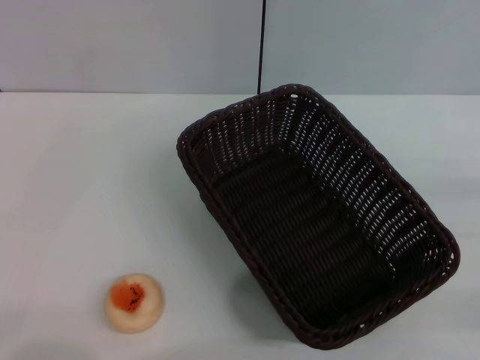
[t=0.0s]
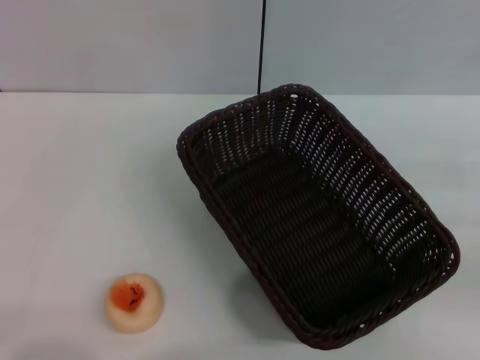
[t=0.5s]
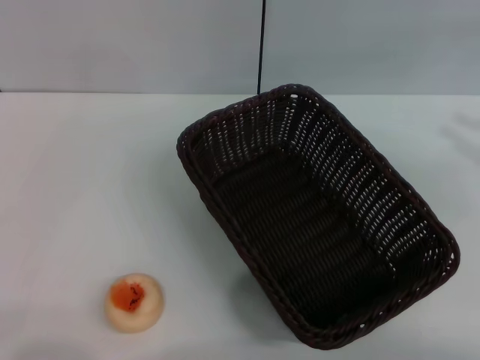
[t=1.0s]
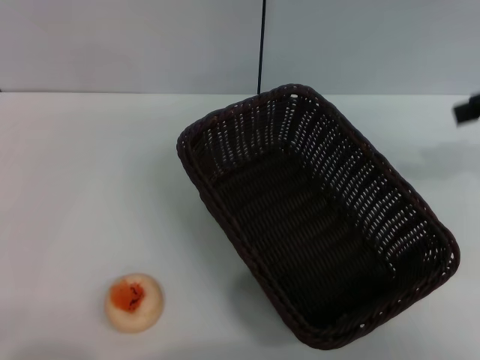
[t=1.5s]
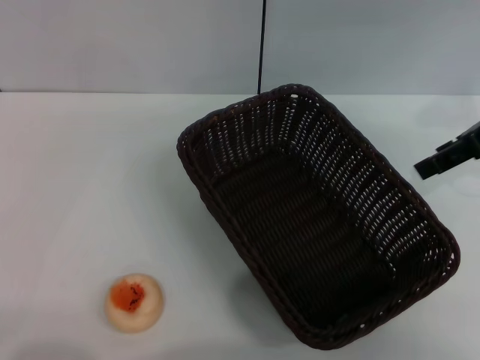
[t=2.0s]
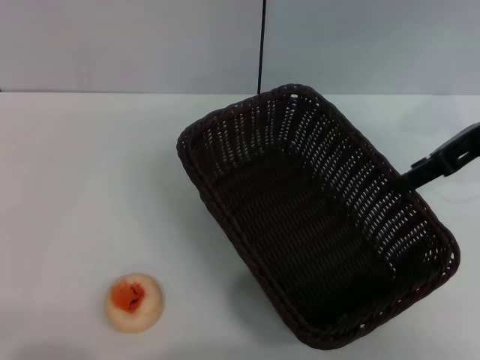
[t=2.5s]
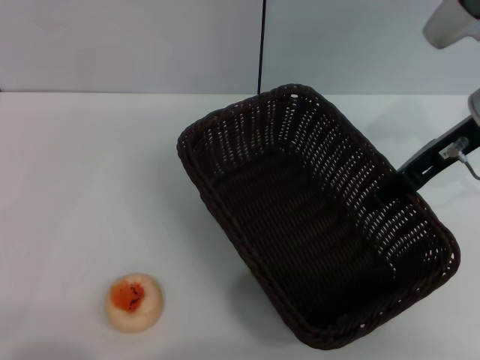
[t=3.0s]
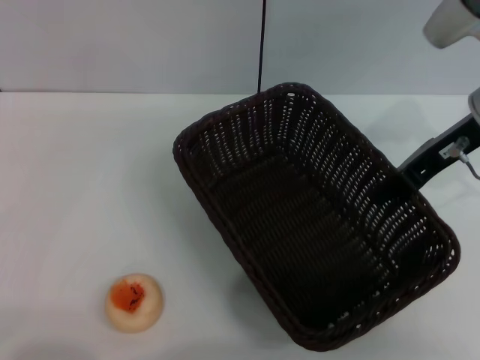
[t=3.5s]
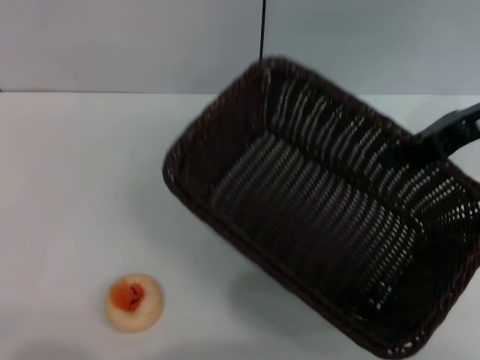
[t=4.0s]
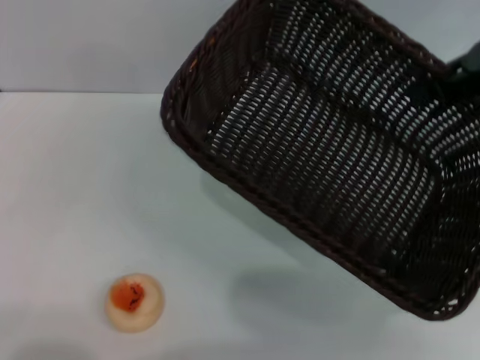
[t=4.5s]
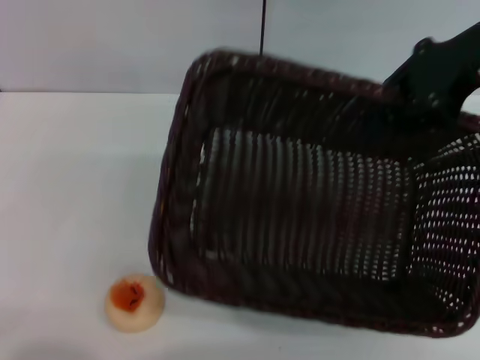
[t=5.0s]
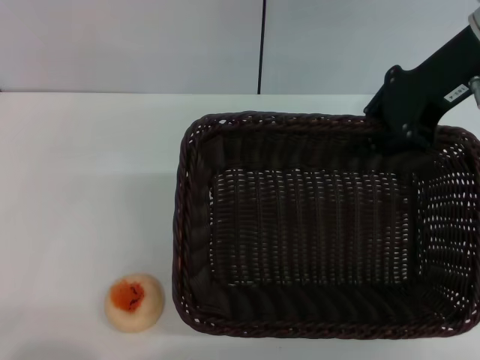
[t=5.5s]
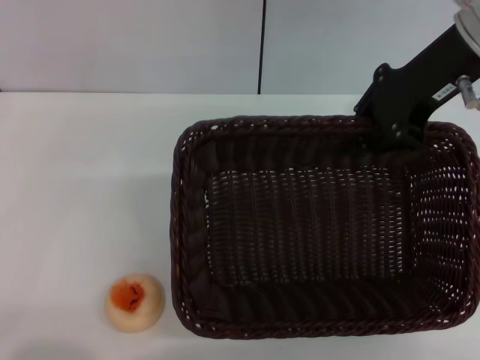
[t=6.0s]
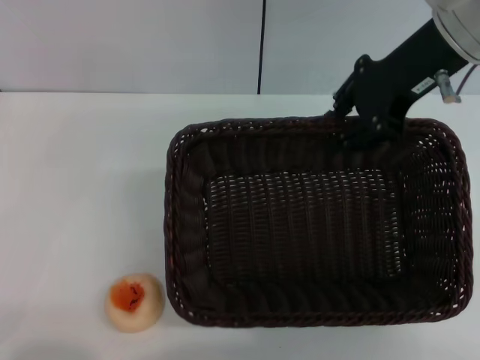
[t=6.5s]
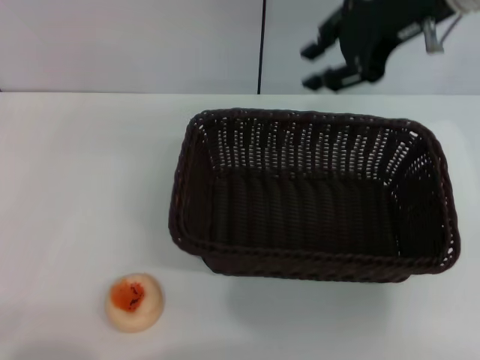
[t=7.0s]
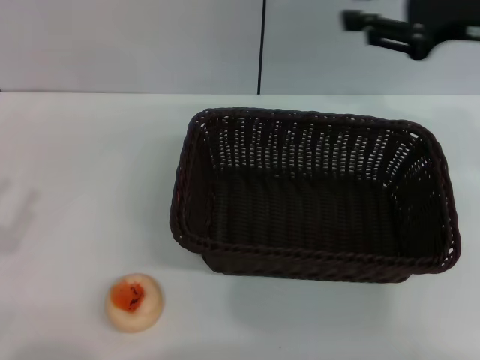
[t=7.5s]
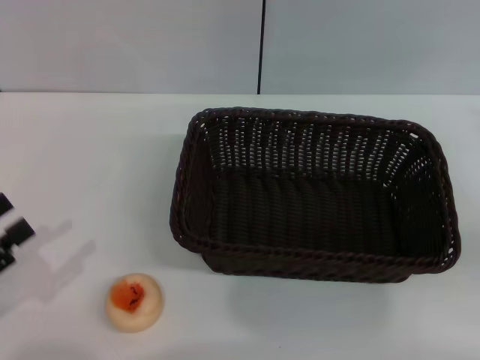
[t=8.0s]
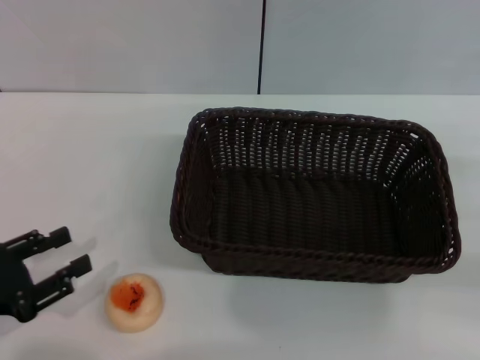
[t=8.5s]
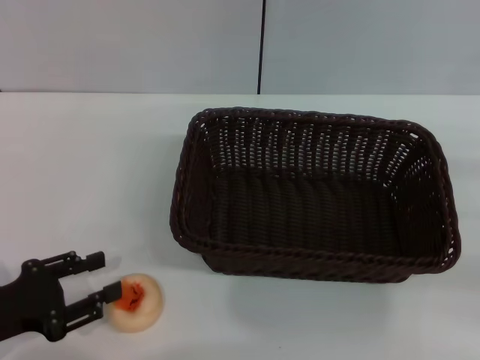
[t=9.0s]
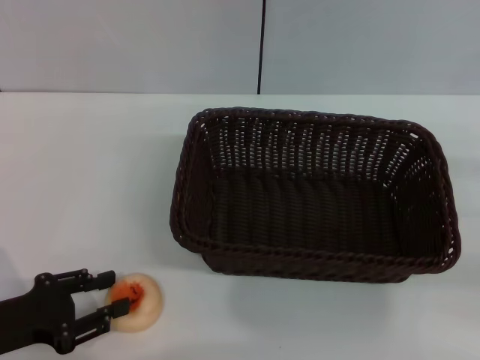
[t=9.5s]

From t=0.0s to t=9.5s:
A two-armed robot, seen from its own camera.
Step, from t=0.0s to t=6.5s: Move the basket to the center of view with the right gripper.
From t=0.0s to t=2.0s: The right gripper is displaced forward, upward and to the left by approximately 25 cm, and opens its fingers.
From t=2.0s to t=4.0s: The right gripper closes.
From t=4.0s to t=5.5s: The right gripper heads to the left and upward, covering some 10 cm.
From t=5.5s to t=7.5s: The right gripper is displaced to the right by about 5 cm.
From t=7.5s to t=9.5s: The right gripper moves to the right, downward and backward, approximately 25 cm. The left gripper goes roughly 5 cm to the right and downward.

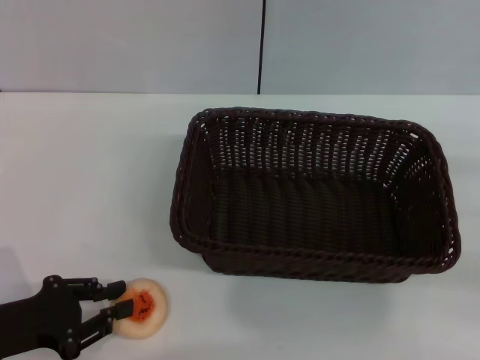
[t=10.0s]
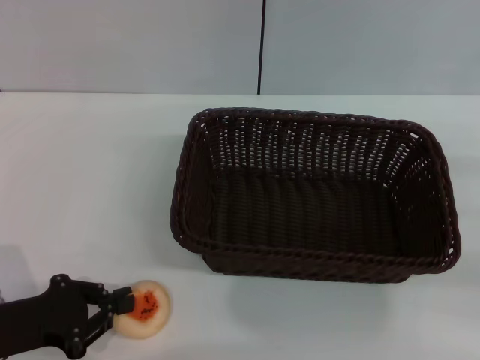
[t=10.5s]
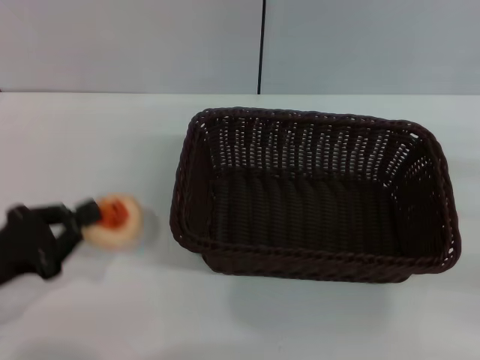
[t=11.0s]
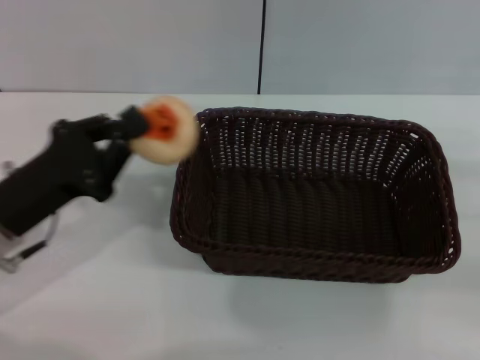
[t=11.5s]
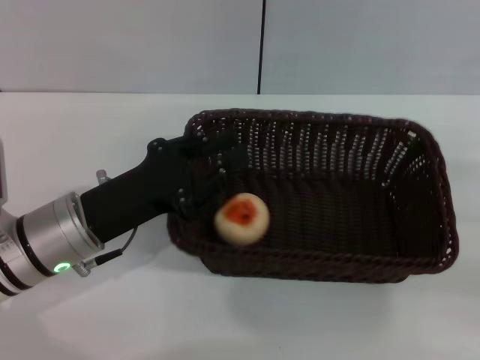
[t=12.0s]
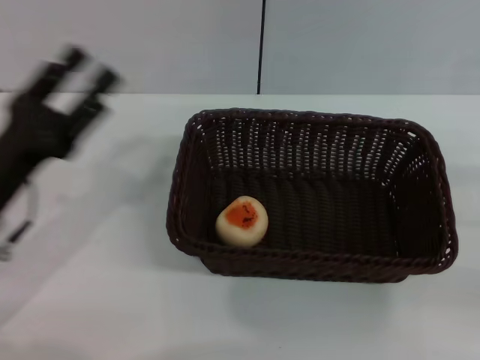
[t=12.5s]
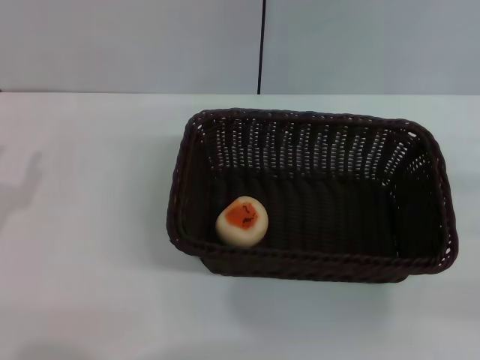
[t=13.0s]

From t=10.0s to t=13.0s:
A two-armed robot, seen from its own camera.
Step, from t=11.5s to t=12.0s: Place the egg yolk pastry into the basket with the left gripper.
From t=10.0s to t=11.5s: The left gripper moves forward and to the right, roughly 10 cm, and closes up.
From t=11.5s to t=13.0s: The left gripper shifts roughly 10 cm to the left and backward, and opens its fingers.

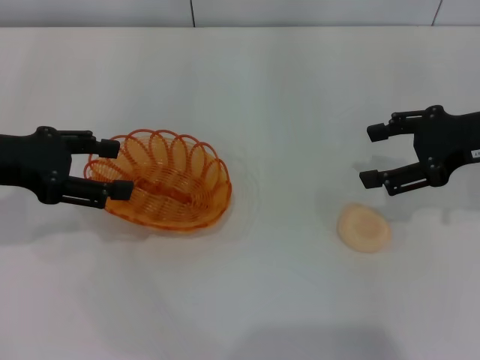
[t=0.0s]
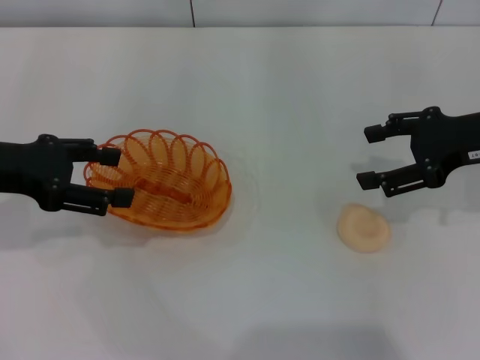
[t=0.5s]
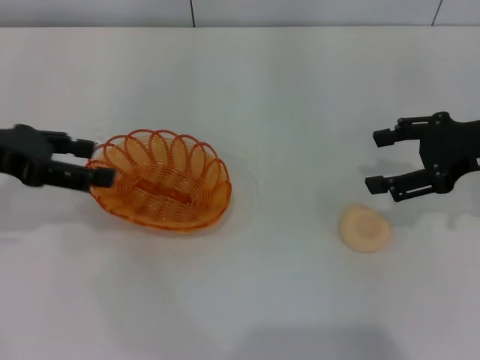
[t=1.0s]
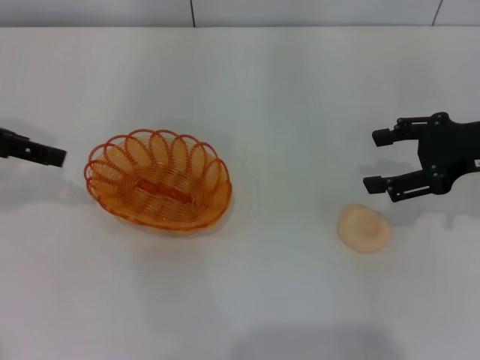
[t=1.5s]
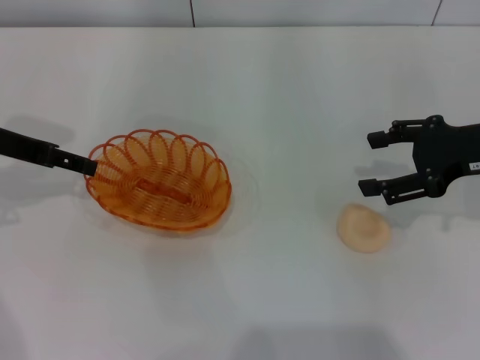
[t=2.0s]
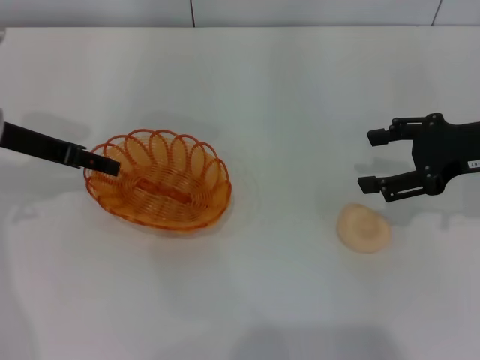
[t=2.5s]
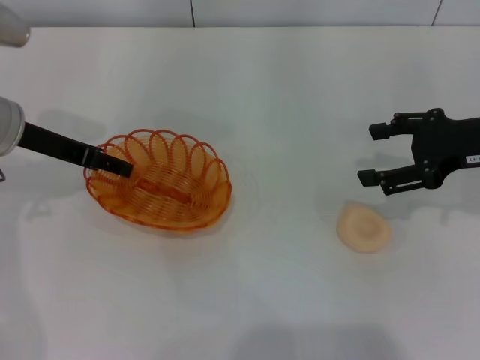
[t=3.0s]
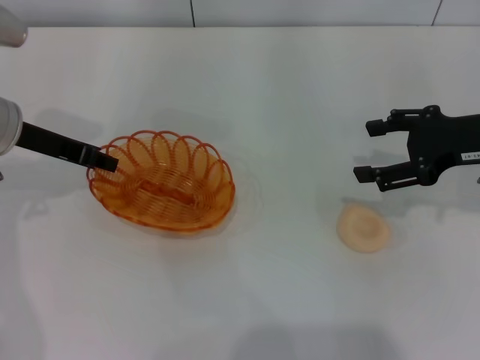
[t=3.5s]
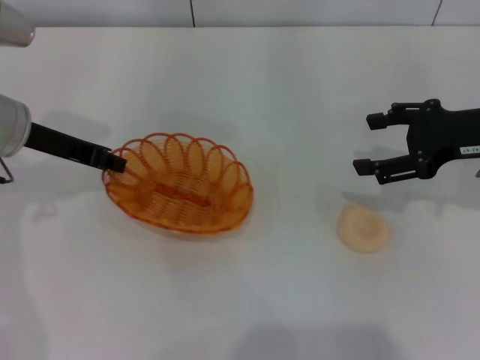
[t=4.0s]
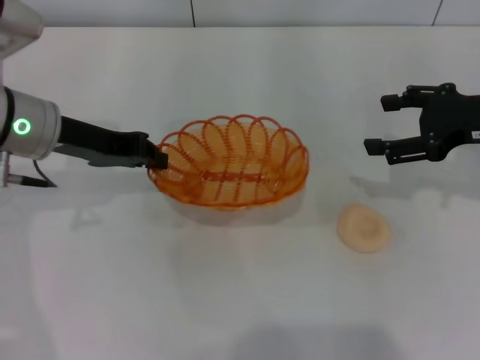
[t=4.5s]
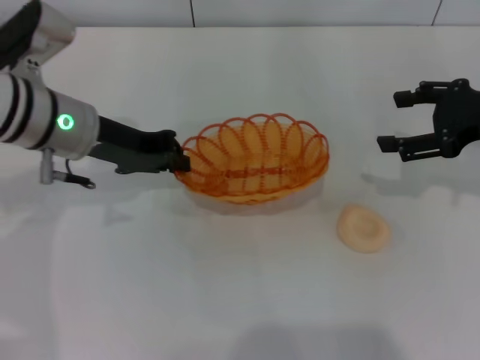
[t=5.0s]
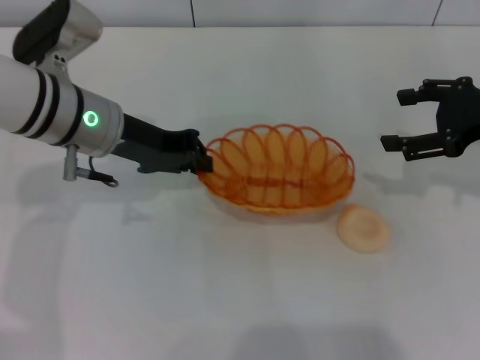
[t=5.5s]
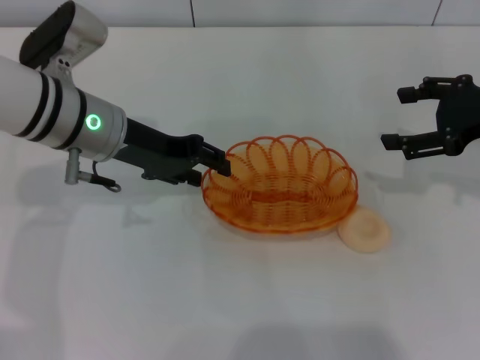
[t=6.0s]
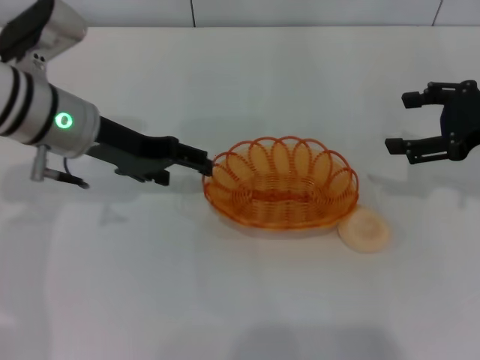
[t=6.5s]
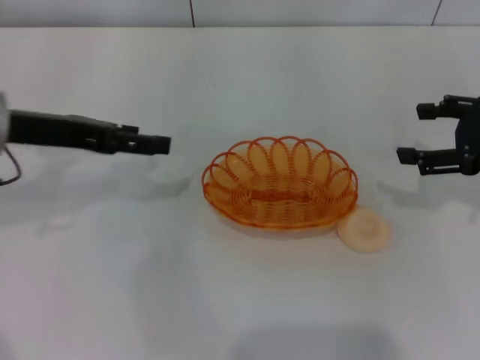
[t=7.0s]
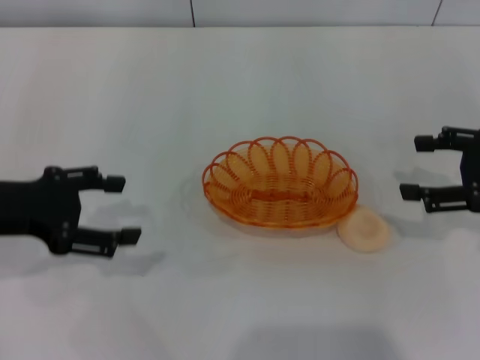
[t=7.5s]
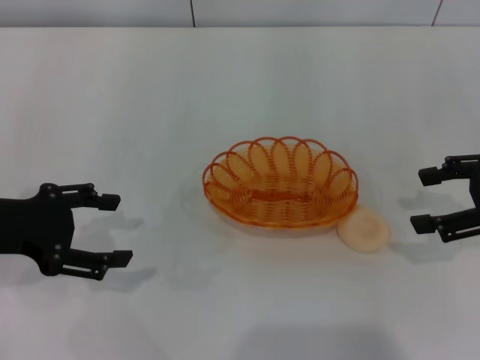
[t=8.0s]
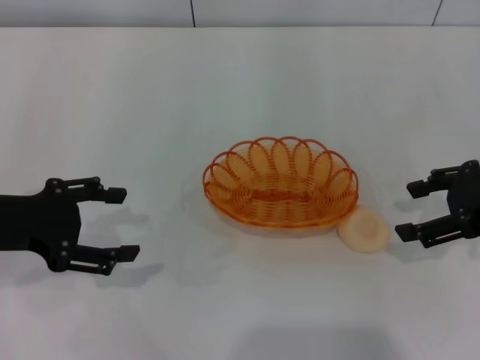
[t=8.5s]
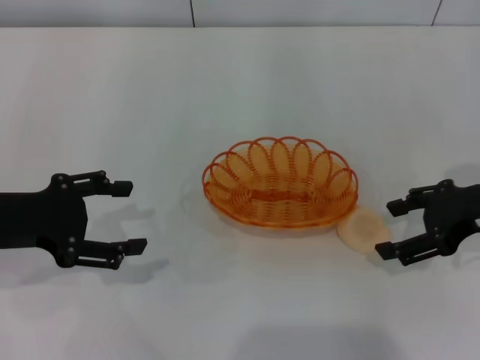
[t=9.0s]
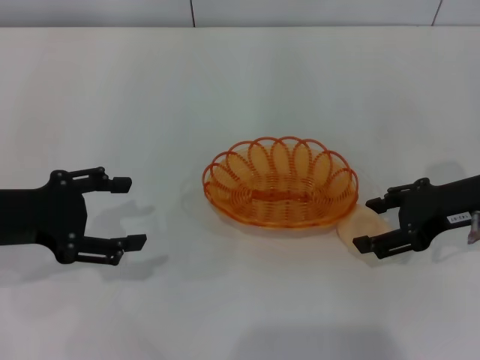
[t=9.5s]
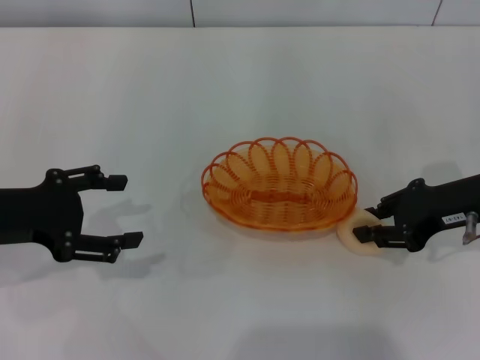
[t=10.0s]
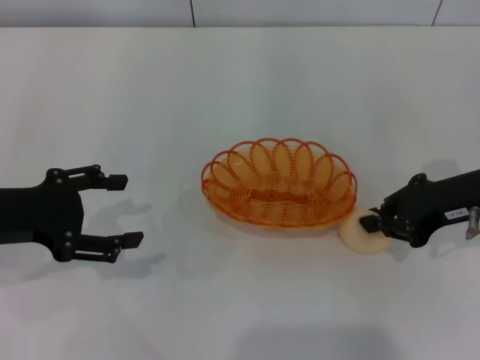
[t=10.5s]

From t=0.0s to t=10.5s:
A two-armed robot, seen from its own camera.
Step, from t=0.0s to t=4.0s: Pick up the basket with the left gripper.
Step, from t=4.5s to t=6.5s: Place the basket in the center of view with the left gripper.
From t=2.0s to t=4.0s: The left gripper moves some 5 cm, and closes its fingers.
From t=4.0s to t=6.5s: The left gripper heads to the right, covering some 5 cm, and opens its fingers.
From t=6.5s to t=8.5s: The left gripper moves to the left and backward, approximately 15 cm.
From t=8.5s to t=10.5s: The right gripper changes place by approximately 5 cm, and closes.

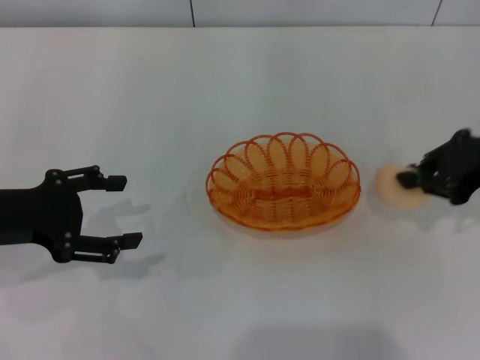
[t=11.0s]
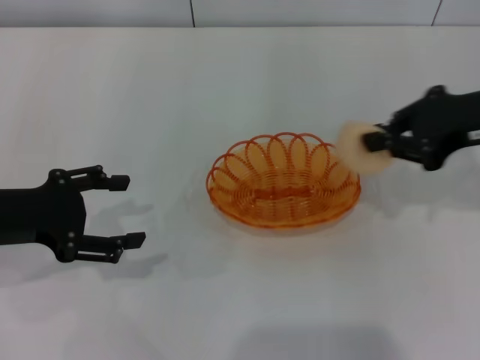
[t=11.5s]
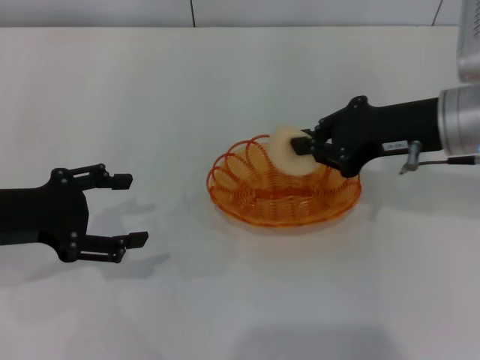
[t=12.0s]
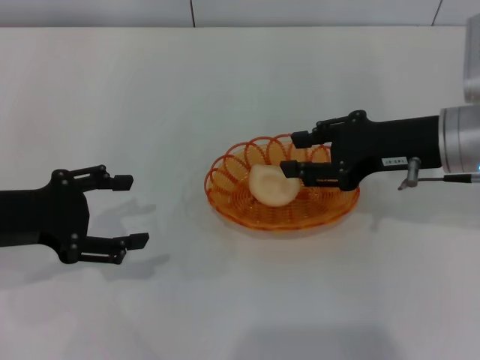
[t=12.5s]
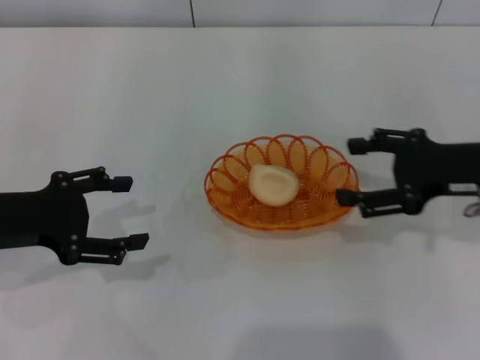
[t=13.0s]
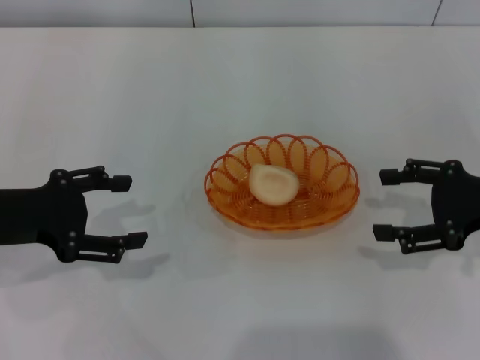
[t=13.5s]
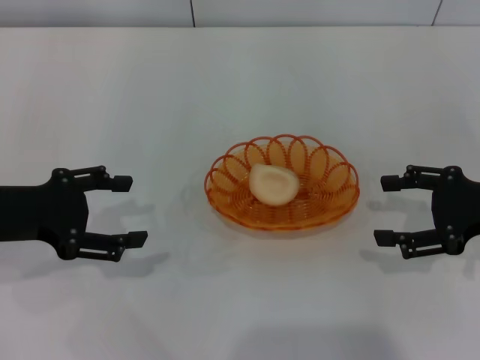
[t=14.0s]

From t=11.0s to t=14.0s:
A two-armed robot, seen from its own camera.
Step, from t=11.5s to t=12.5s: Place the egg yolk pastry into the basket with the right gripper.
From t=11.0s to t=12.5s: The right gripper moves to the left, roughly 10 cm, and opens up.
From t=12.5s to t=14.0s: The right gripper shifts some 10 cm to the right, and opens up.
